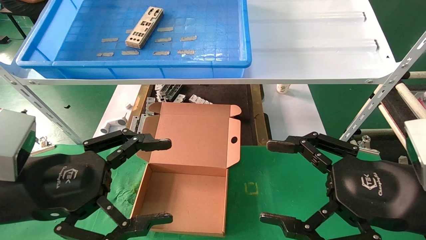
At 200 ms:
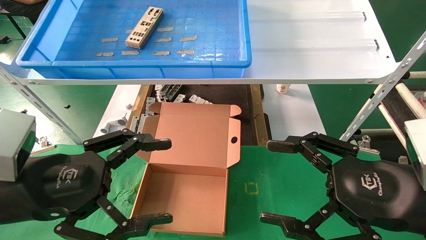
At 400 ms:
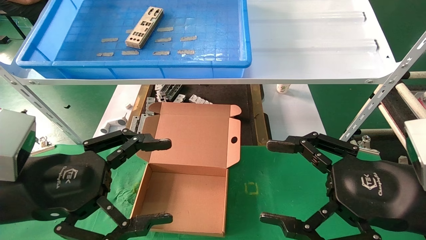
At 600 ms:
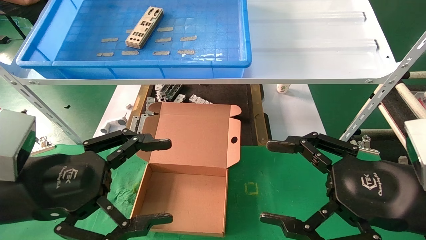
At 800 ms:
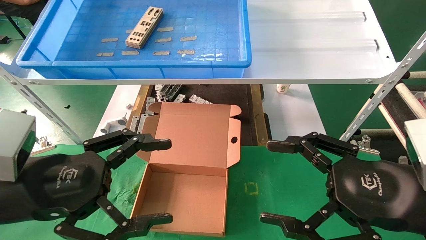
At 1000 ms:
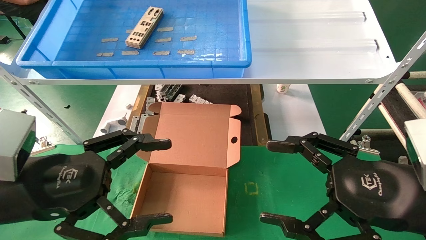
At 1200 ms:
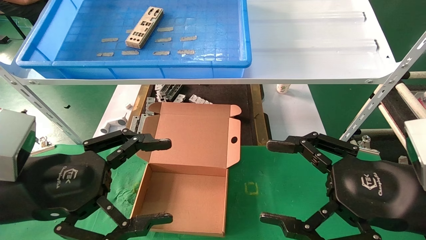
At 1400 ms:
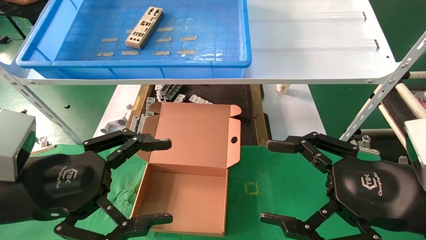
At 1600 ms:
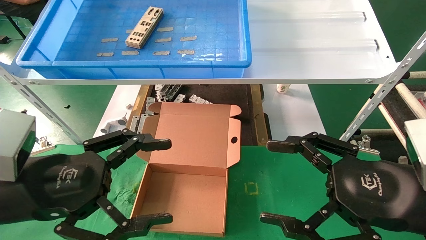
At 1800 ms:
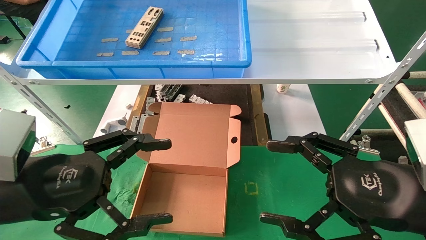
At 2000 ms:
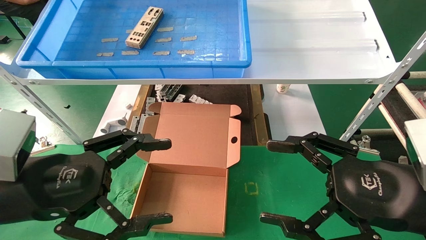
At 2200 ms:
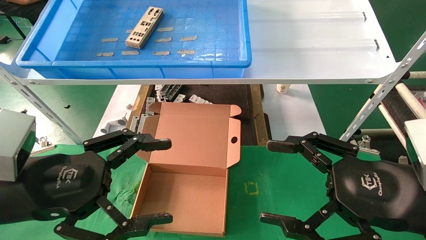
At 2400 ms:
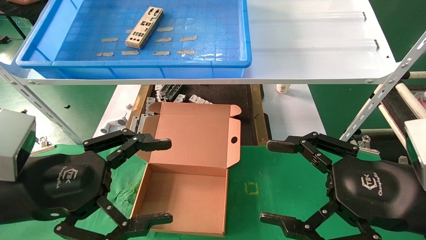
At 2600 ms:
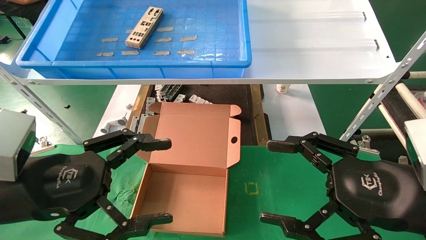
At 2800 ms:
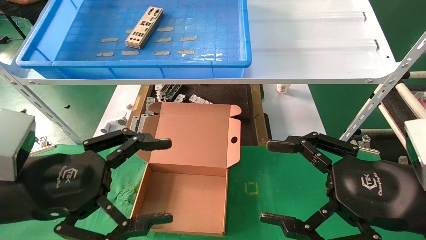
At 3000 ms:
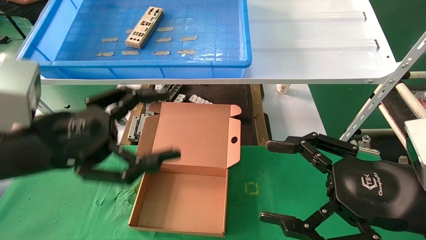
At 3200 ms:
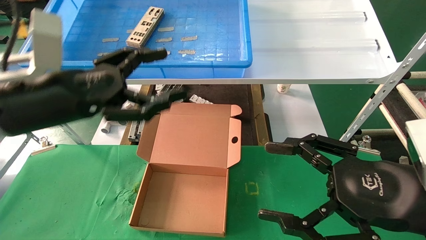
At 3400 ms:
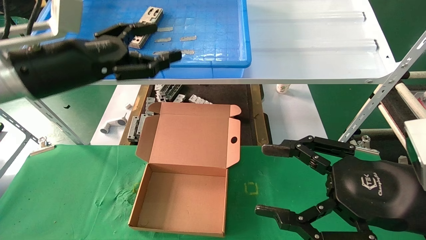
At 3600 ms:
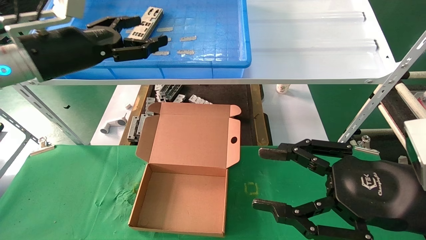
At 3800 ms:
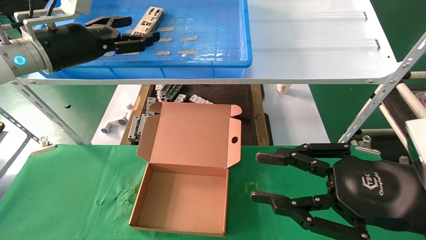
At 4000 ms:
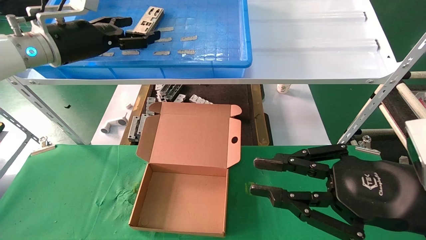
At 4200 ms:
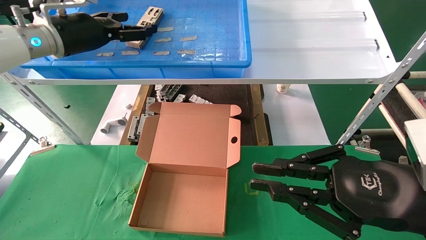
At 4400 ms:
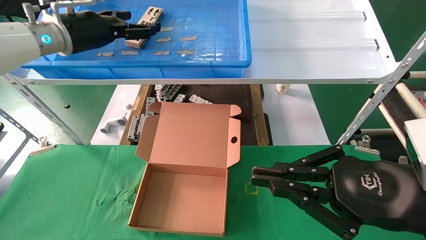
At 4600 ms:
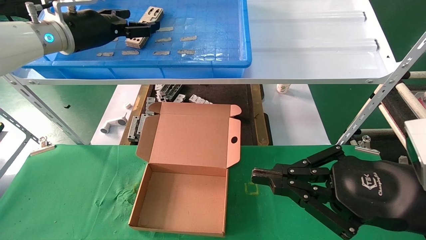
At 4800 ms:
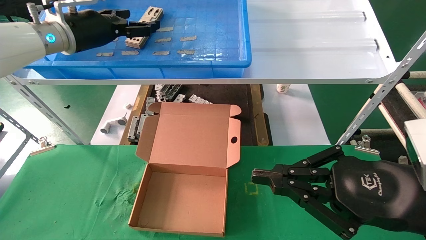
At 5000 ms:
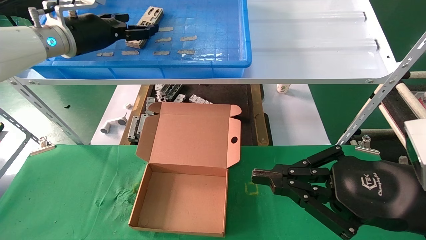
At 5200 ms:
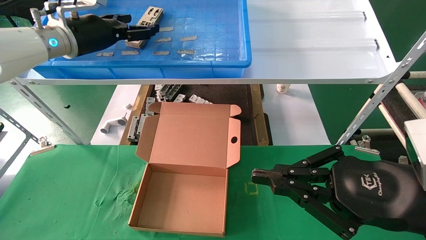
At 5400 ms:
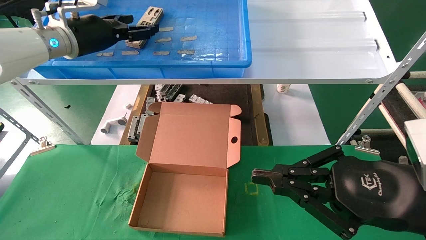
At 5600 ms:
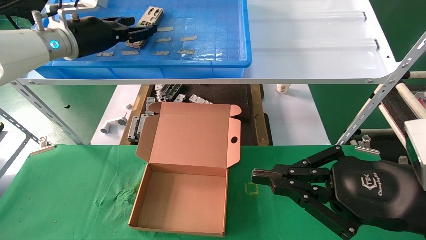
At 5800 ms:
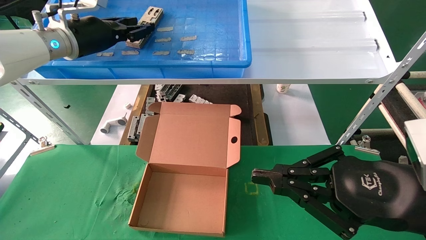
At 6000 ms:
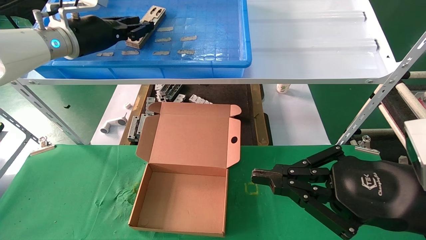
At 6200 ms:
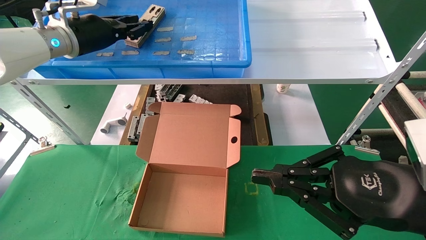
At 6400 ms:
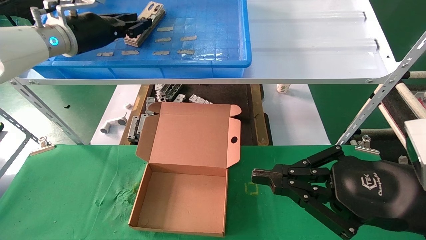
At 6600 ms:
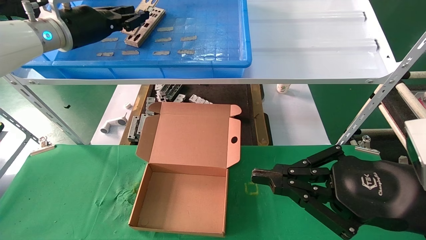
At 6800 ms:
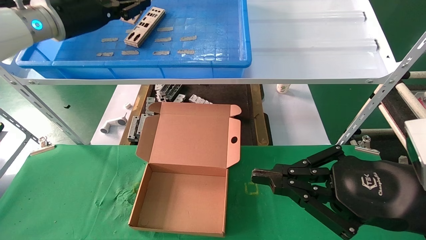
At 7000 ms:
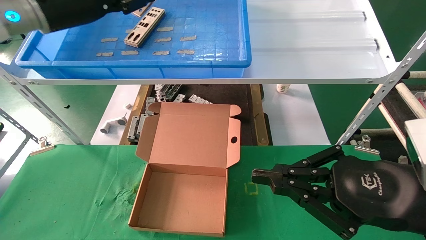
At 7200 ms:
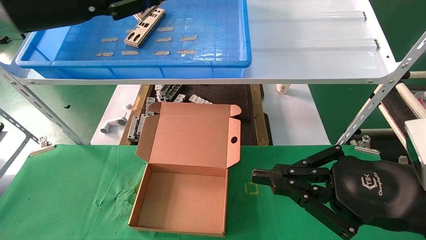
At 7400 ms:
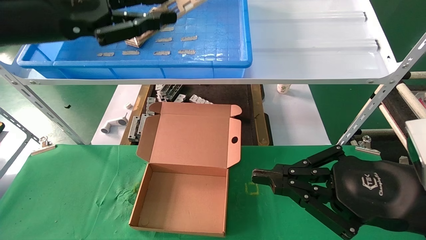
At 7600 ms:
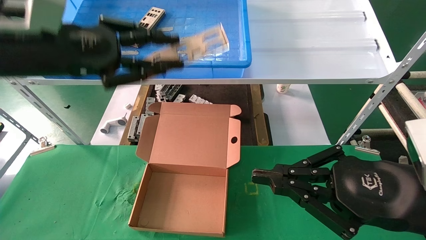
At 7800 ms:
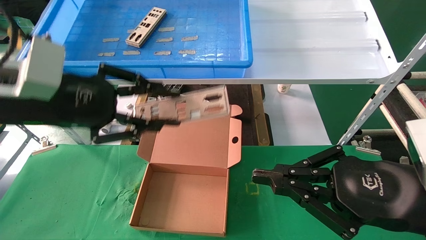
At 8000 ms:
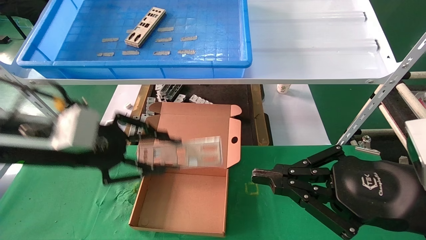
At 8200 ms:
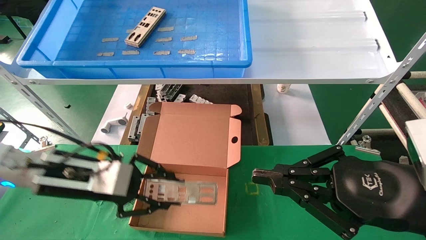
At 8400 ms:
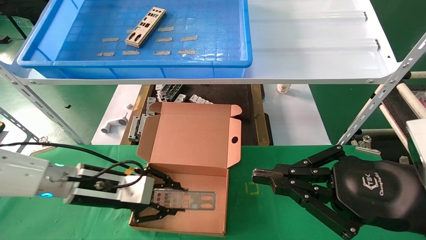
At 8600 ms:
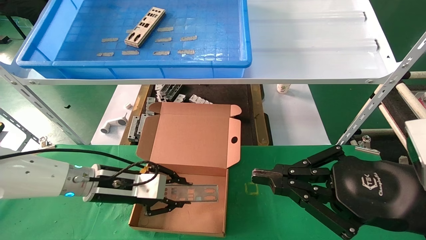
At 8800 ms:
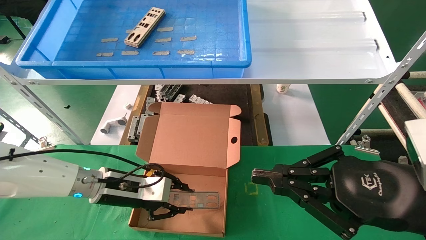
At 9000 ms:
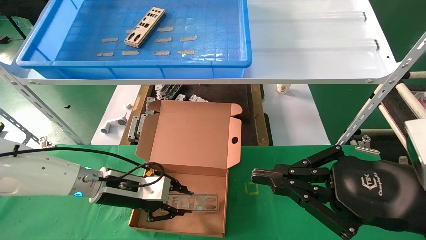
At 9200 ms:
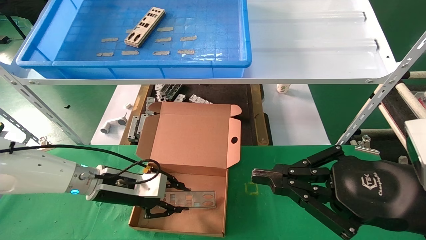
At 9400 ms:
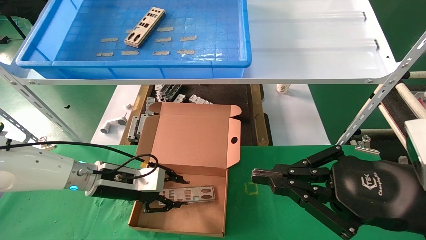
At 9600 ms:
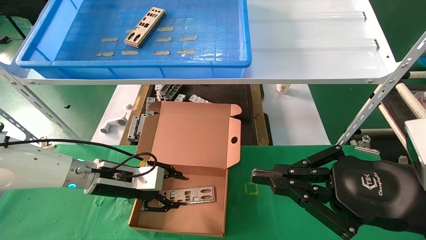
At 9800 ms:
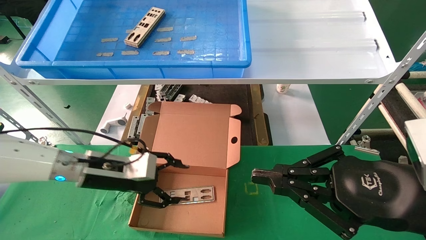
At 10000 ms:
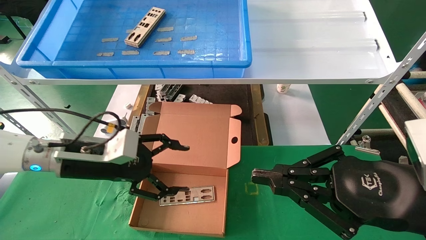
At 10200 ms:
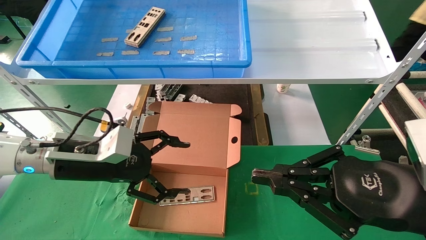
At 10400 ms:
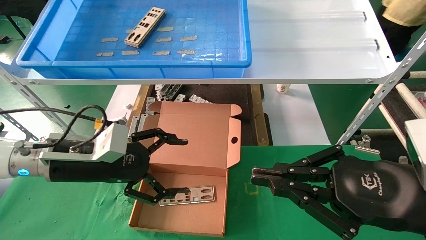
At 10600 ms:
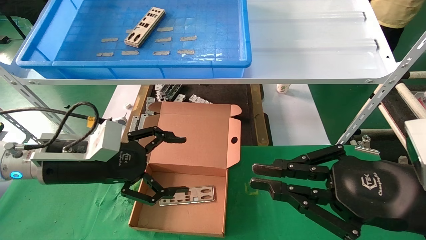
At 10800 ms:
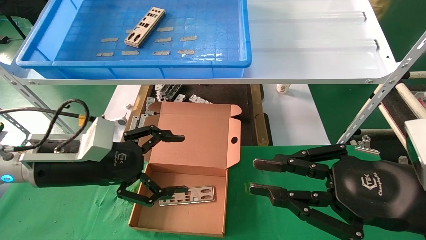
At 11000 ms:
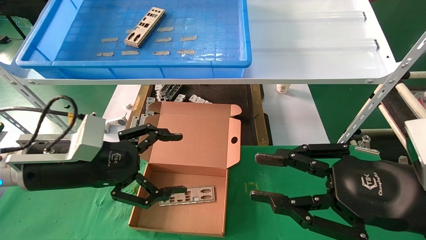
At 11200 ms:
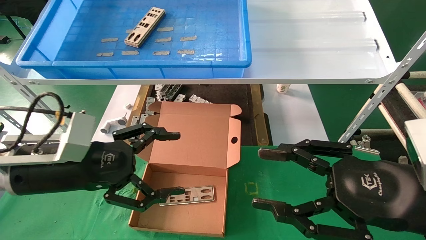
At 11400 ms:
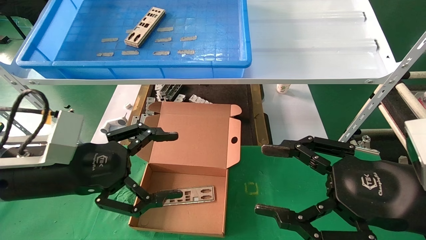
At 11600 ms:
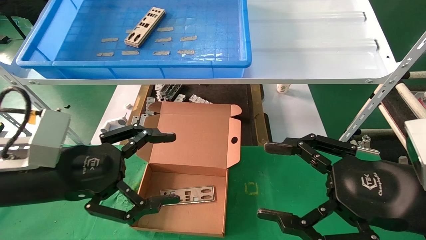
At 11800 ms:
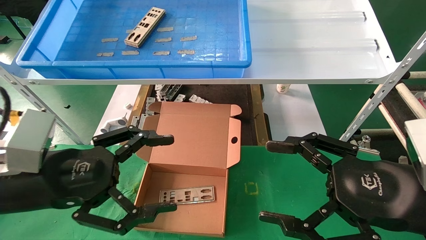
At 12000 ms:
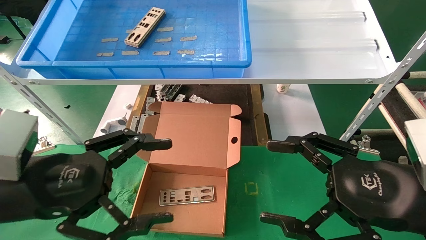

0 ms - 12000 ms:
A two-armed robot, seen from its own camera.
Task of the whole recording: pick up the parts on the tray and put them in the cardboard box.
Step, 3200 ms - 6800 ms: Pick up the IO bracket from the container box.
Step, 7000 ms - 9400 ms: Place the IO bracket into the ingredient slot.
0 ms - 1600 ms: Both grippers stay about where they are.
1600 ms - 3000 ms: The left gripper shifts by some 5 cm.
3000 ms - 4400 ms: The right gripper closes up. The left gripper is displaced forward and upward by roughly 25 cm.
4400 ms - 6000 ms: The left gripper closes up.
6000 ms - 7600 ms: The left gripper heads backward, covering about 15 cm.
7600 ms - 9000 ms: The left gripper moves downward, roughly 25 cm.
9000 ms - 10400 ms: The left gripper travels upward and backward by some 10 cm, and opens up.
10400 ms - 12000 ms: The left gripper travels backward by some 10 cm. Meanwhile the right gripper opens up.

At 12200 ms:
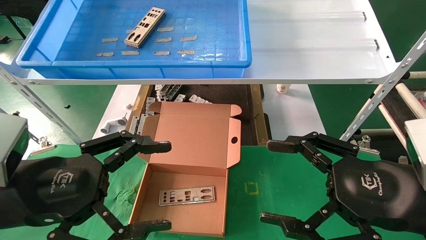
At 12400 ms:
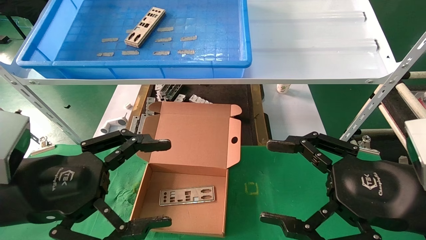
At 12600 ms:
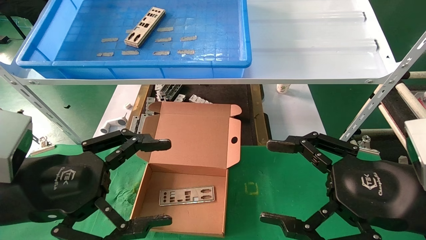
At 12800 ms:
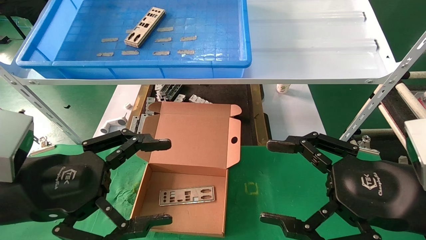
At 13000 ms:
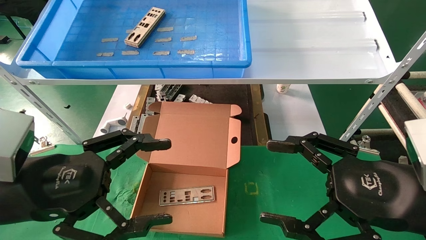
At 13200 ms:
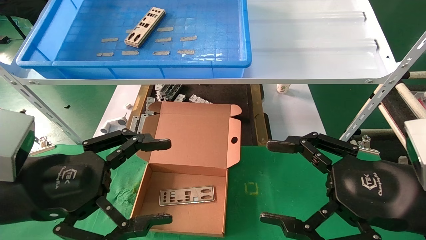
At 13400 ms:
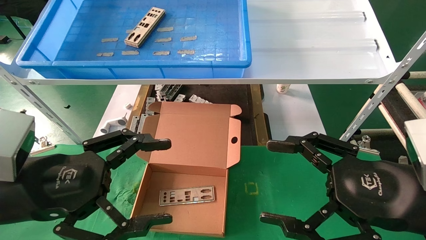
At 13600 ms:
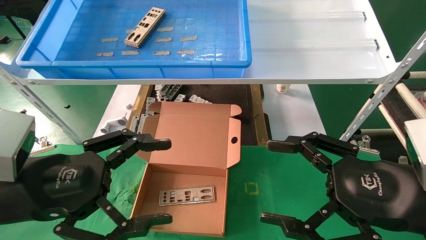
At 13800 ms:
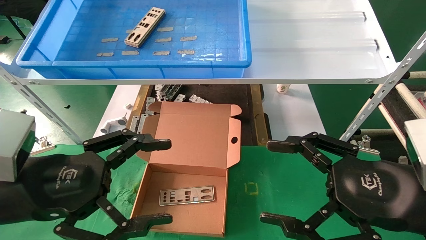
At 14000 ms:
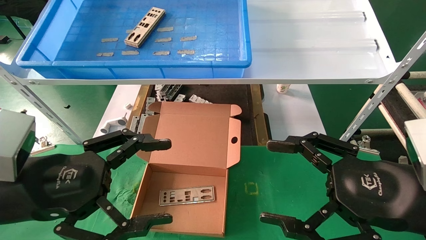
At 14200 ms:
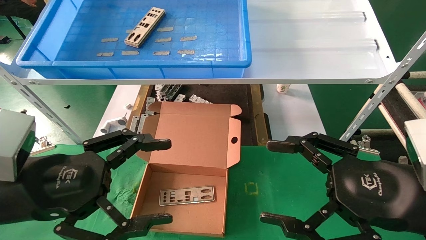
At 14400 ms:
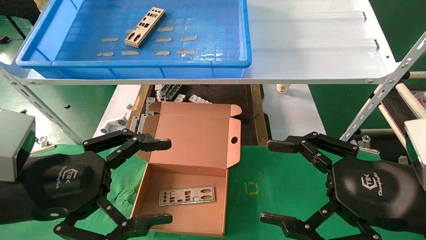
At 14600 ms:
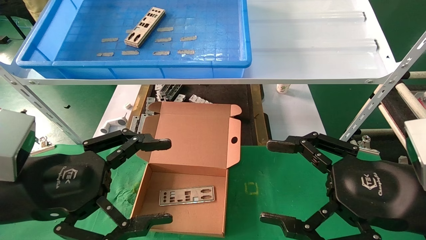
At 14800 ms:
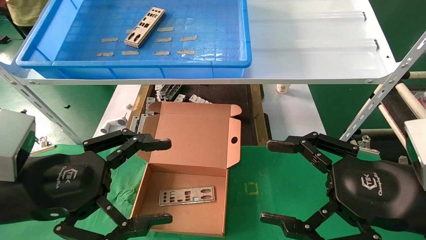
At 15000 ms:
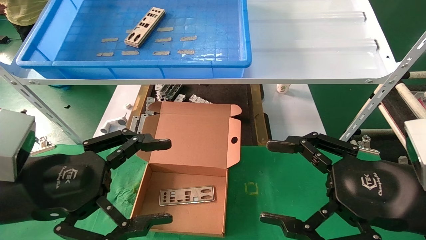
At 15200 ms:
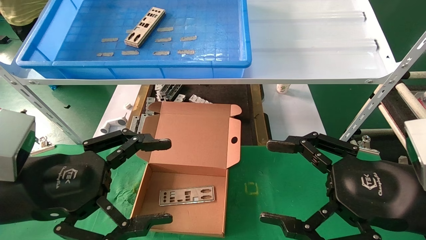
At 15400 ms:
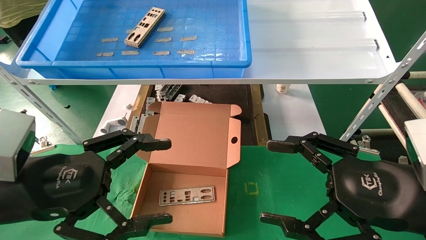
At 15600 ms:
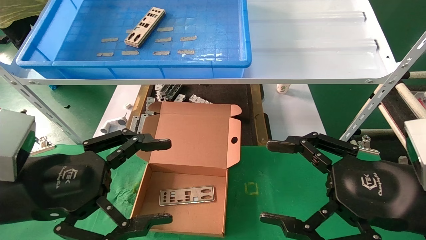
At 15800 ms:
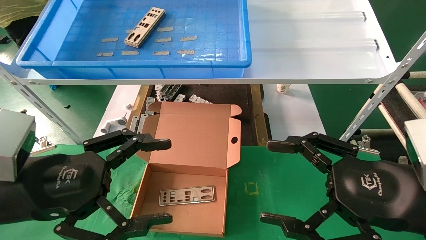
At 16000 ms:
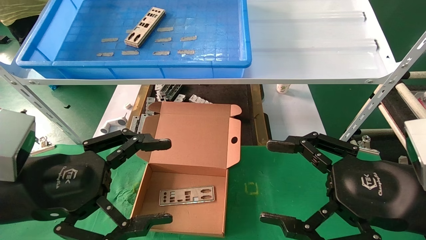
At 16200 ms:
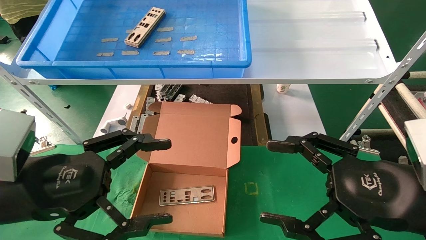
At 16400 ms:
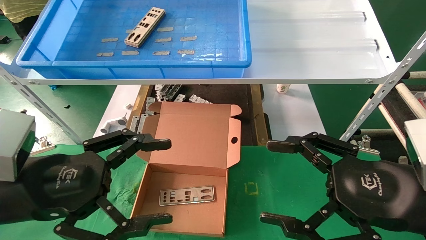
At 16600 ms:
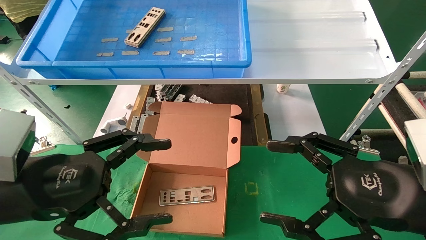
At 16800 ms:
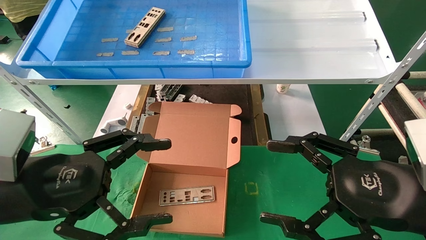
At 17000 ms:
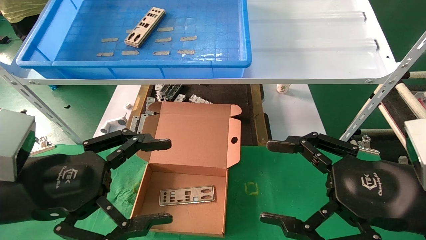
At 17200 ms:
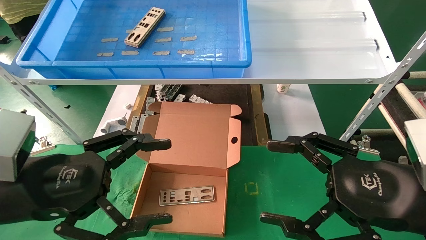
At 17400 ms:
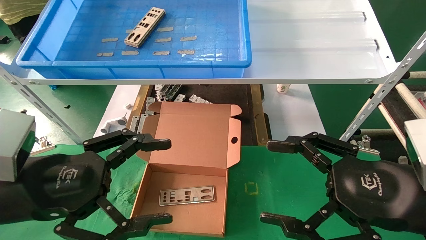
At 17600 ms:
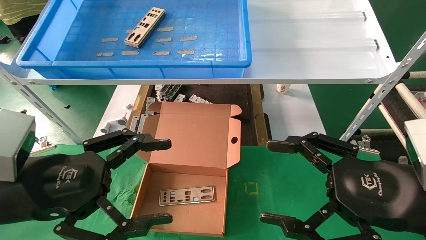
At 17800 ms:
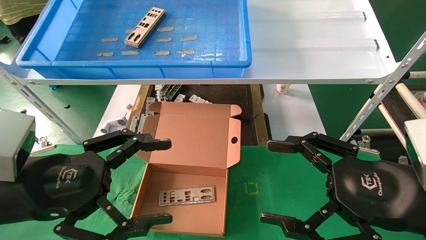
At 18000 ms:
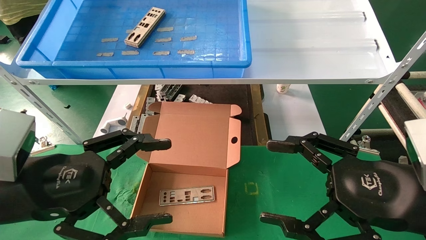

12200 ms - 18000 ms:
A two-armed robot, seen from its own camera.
Task of the whole recording: pick up the parts on the tray and put them in the cardboard box.
12200 ms - 18000 ms: Both grippers stay put.
